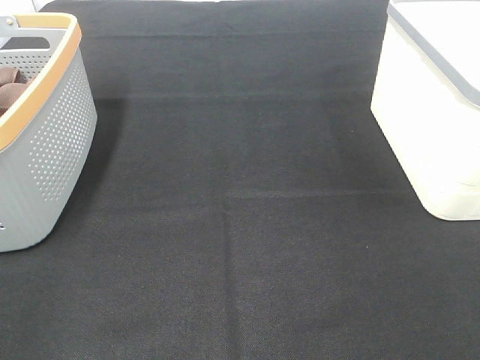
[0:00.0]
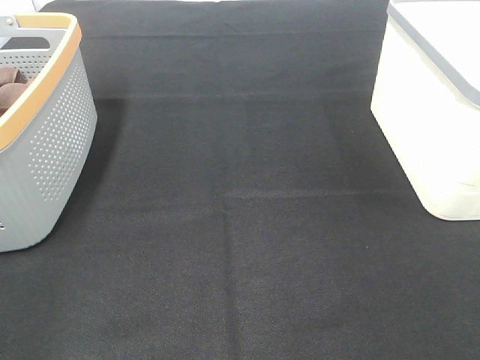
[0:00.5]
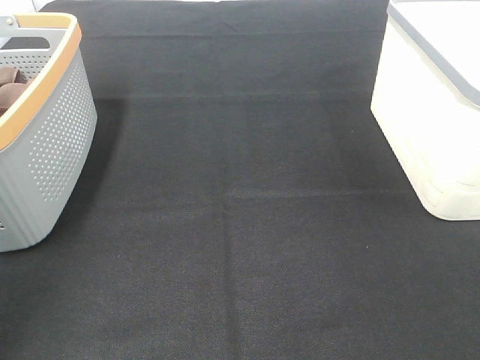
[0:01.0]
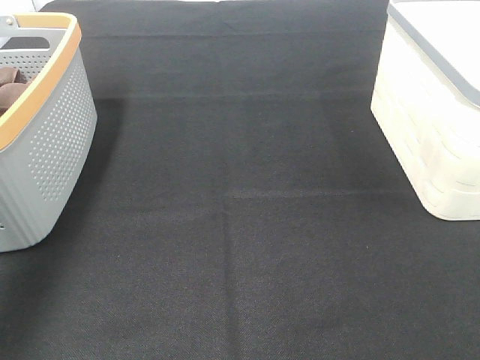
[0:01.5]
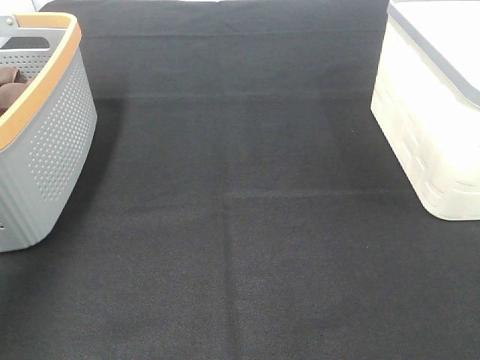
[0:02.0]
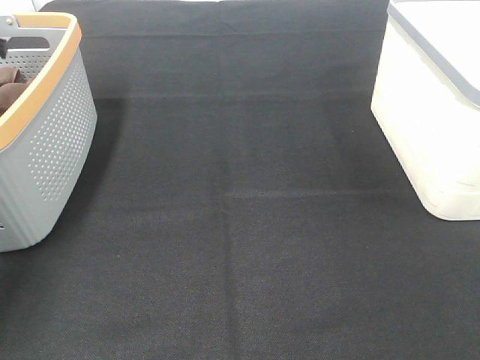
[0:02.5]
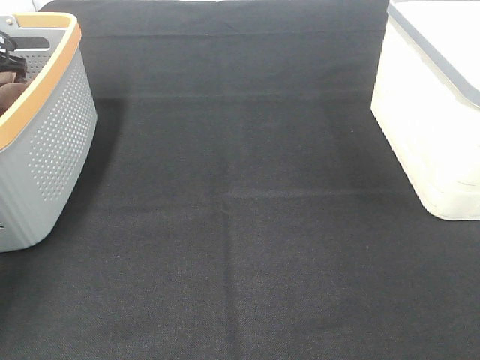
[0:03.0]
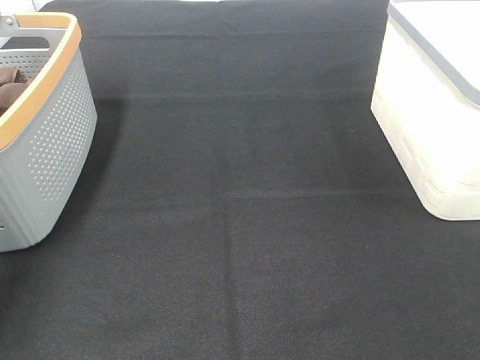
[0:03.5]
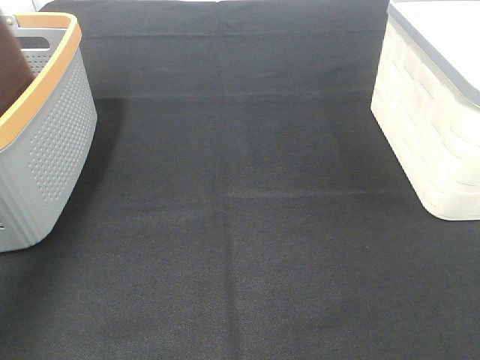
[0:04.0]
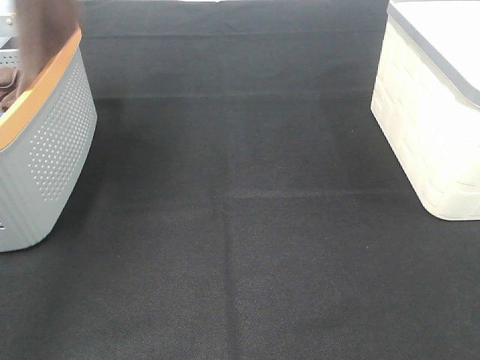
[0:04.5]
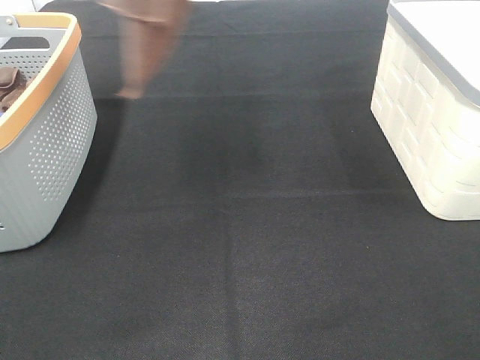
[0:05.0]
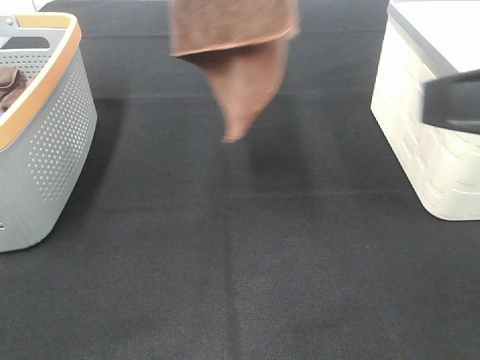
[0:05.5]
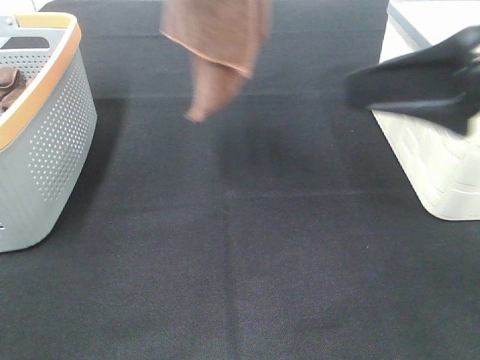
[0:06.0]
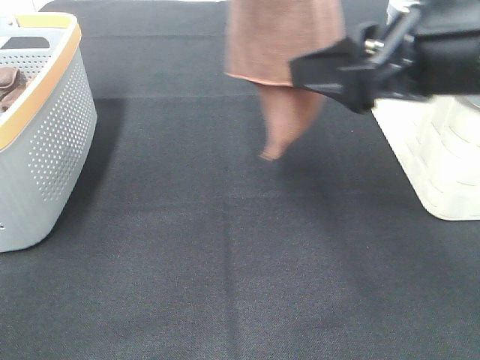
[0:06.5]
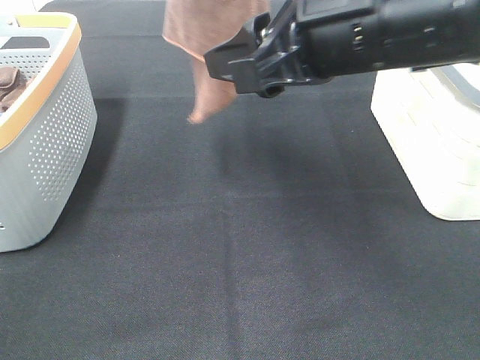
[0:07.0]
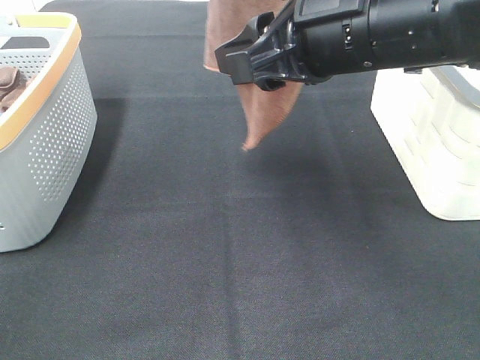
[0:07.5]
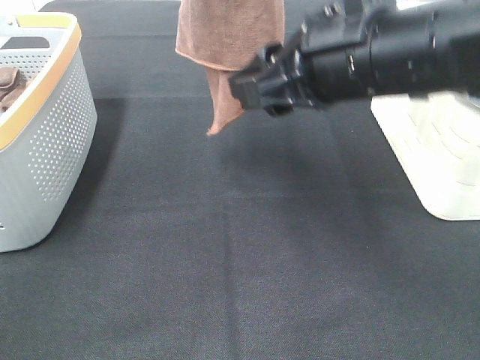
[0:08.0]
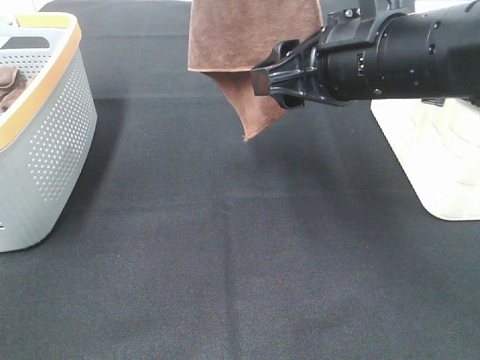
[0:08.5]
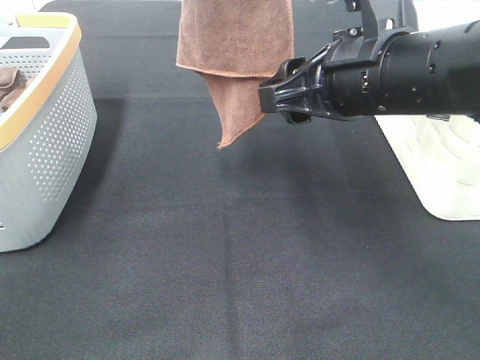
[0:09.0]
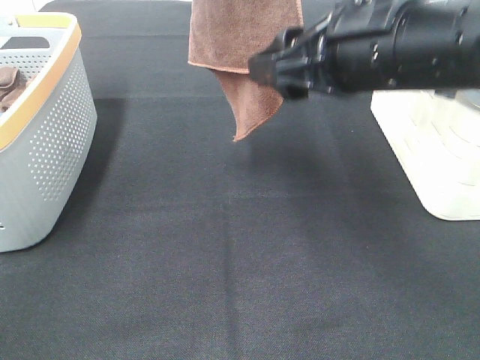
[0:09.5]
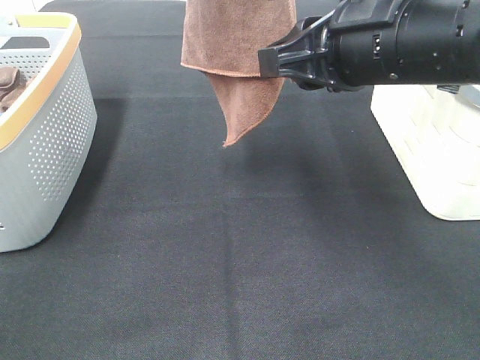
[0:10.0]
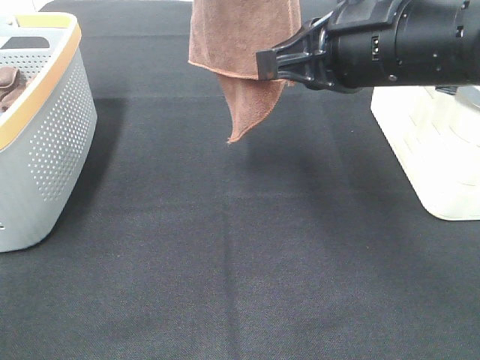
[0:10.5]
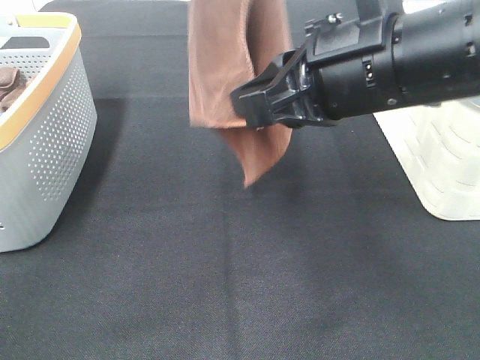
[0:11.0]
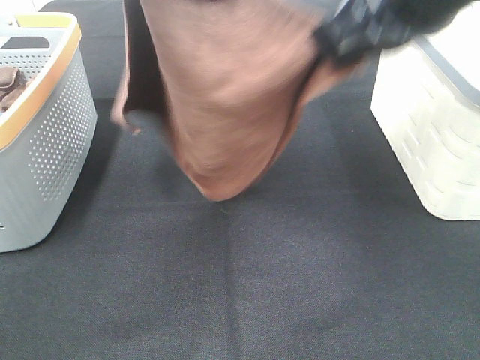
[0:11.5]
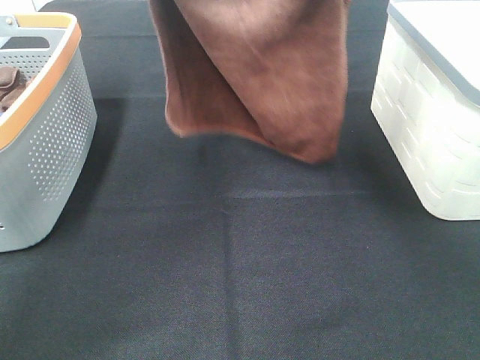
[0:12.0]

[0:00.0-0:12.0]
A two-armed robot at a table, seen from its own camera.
Task of the whole recording: Remove the towel and place it.
Step, 0:03.5 to 0:08.0: Right hand: grab a corner of the brown towel and straighten it.
Step, 0:08.5 to 0:10.5: Right hand: spread the brown towel flat on the table.
0:00.0 to 0:02.0: The left gripper goes some 40 cm forward.
0:02.0 to 0:04.0: The left gripper shifts some 15 cm upward, and closes its fingers.
0:04.0 to 0:06.0: The right gripper goes roughly 20 cm forward and to the left. Meanwhile the left gripper moves to the right, about 25 cm.
0:06.0 to 0:08.0: The right gripper is displaced to the left and forward by some 10 cm.
0:08.0 to 0:10.0: There are only small adjustments of the grippers.
0:10.0 to 0:12.0: The left gripper moves downward, forward and to the left, some 20 cm, while the right gripper travels forward and upward by approximately 10 cm, and closes its fingers.

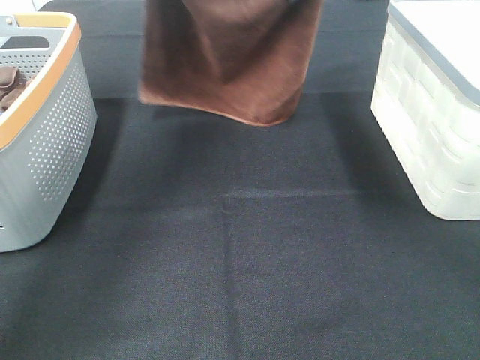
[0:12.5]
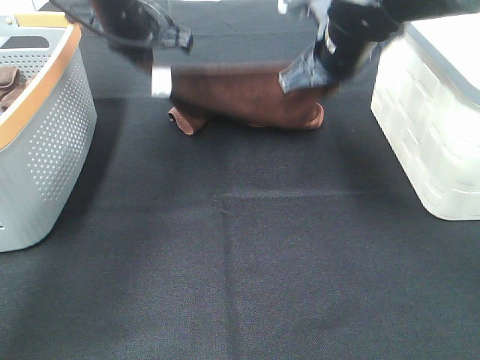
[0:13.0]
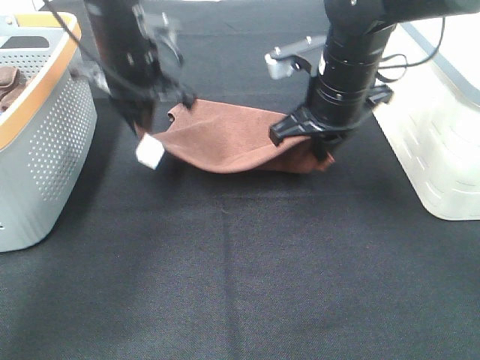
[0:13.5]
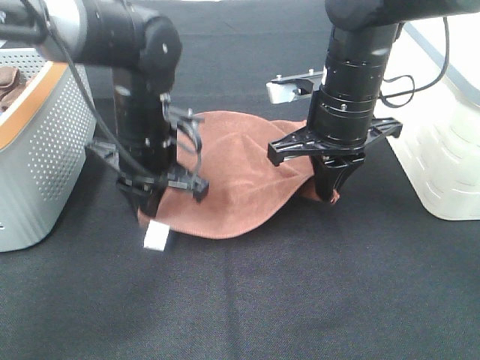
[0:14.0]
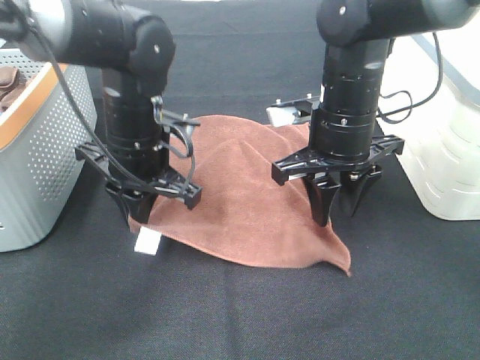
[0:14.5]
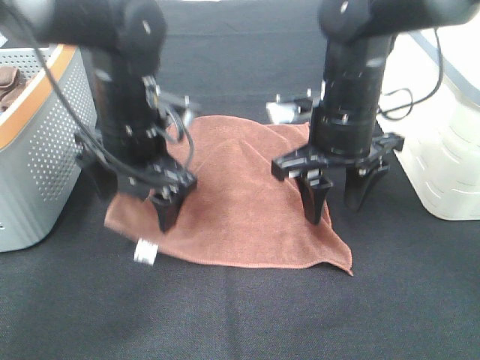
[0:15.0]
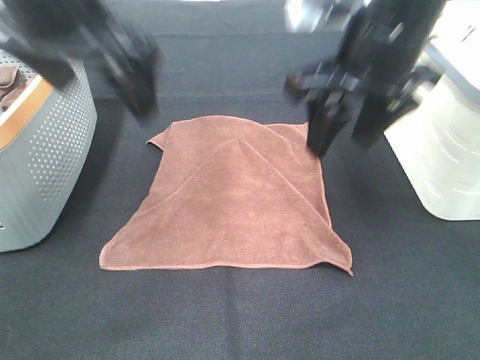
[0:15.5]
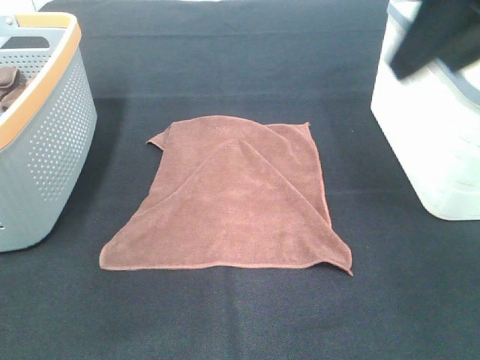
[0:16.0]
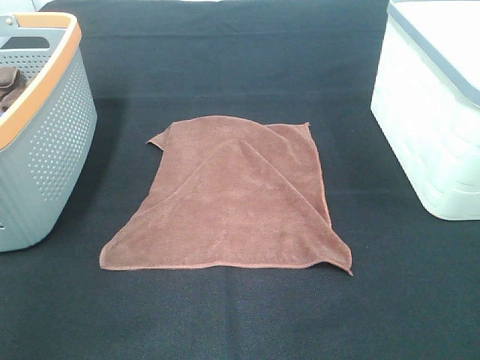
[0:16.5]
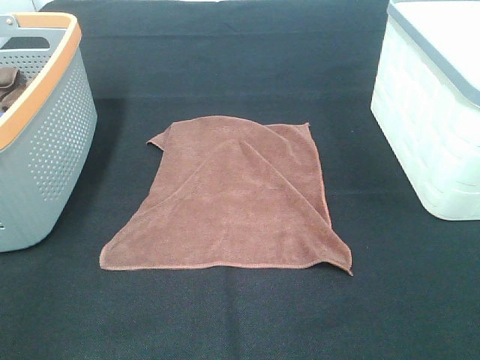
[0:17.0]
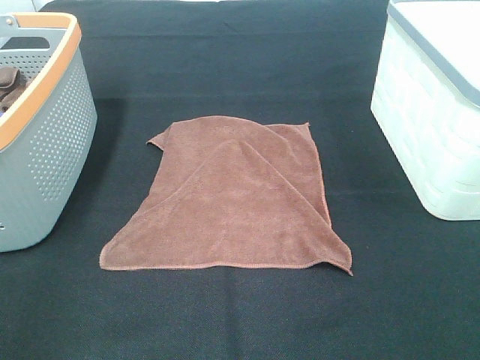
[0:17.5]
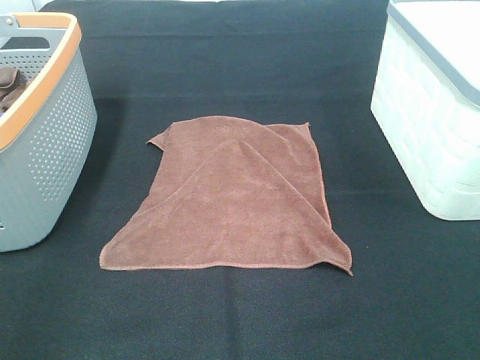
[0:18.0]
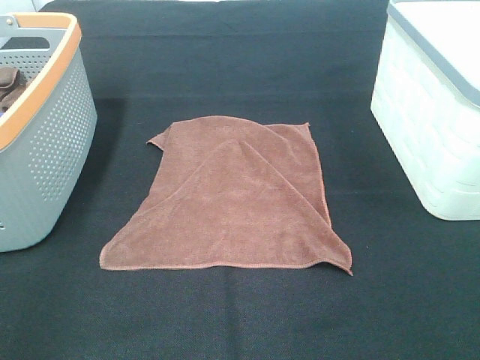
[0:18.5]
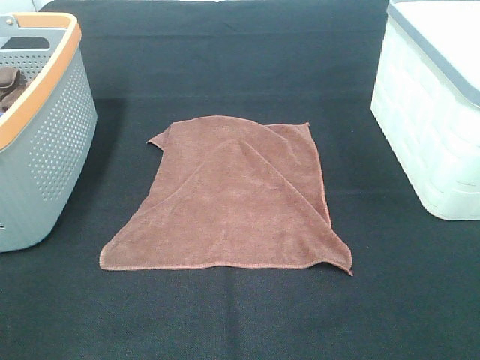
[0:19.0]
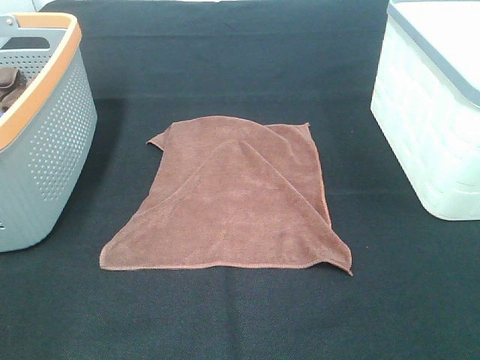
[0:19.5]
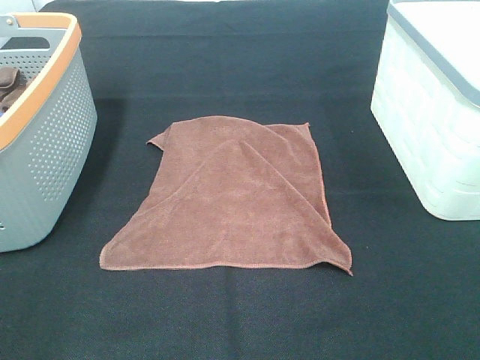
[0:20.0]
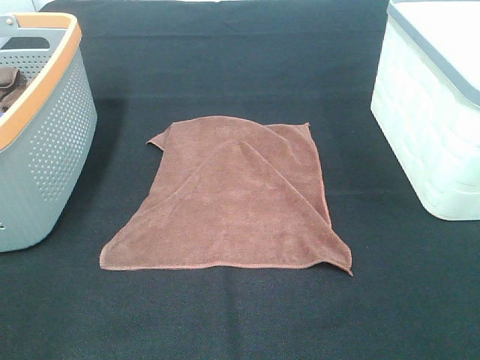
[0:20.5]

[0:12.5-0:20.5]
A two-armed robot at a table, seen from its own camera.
Task of the whole recording: Remove the towel and place it.
0:12.5 to 0:14.5: The left gripper heads downward and backward, covering approximately 20 cm, while the right gripper shifts about 15 cm downward and backward, and opens up.
0:14.5 to 0:16.5: The right gripper is displaced backward, upward and to the right by some 35 cm. Meanwhile the left gripper is displaced upward, backward and to the left by roughly 40 cm, and opens up.

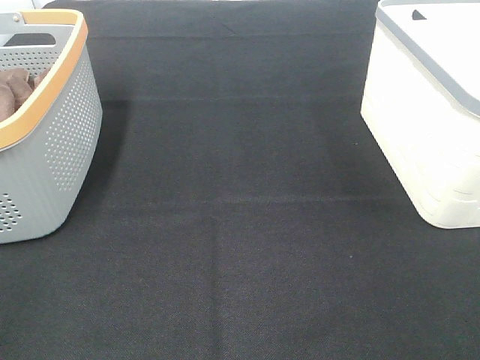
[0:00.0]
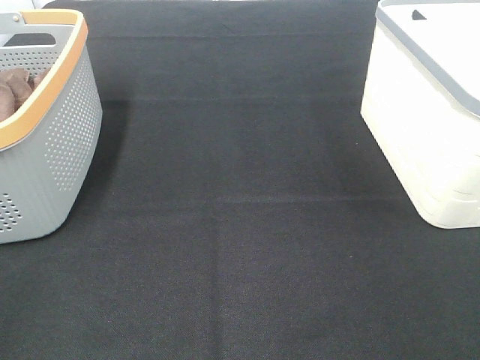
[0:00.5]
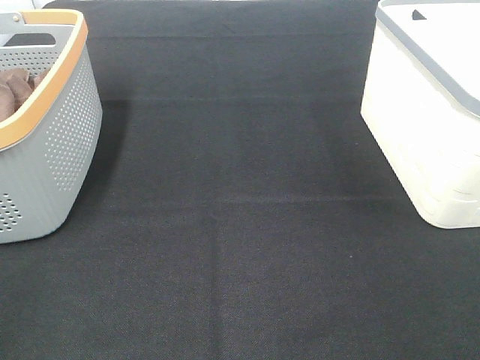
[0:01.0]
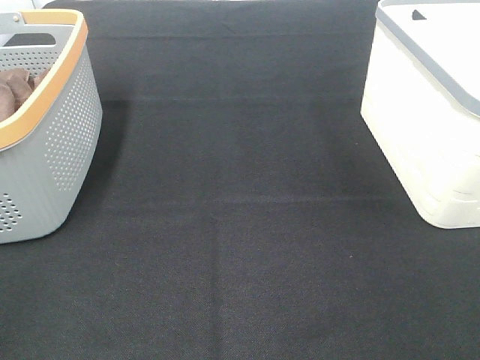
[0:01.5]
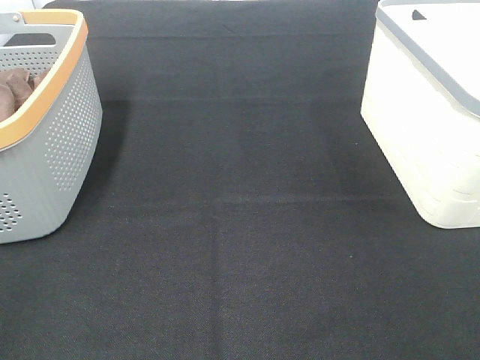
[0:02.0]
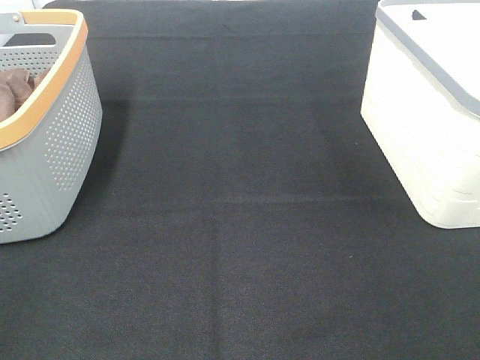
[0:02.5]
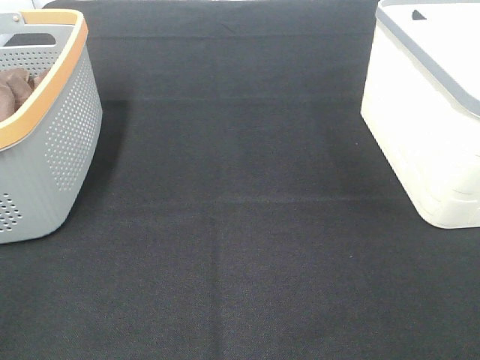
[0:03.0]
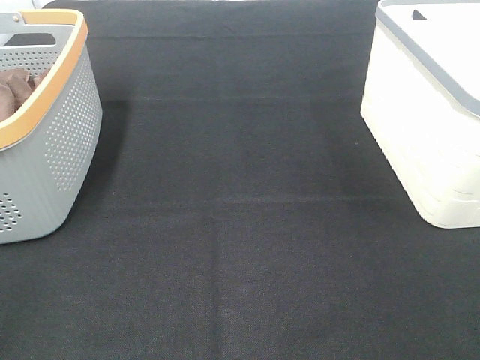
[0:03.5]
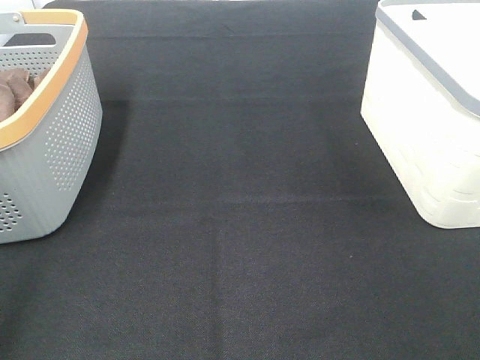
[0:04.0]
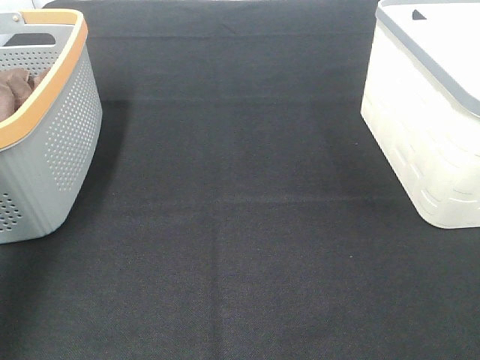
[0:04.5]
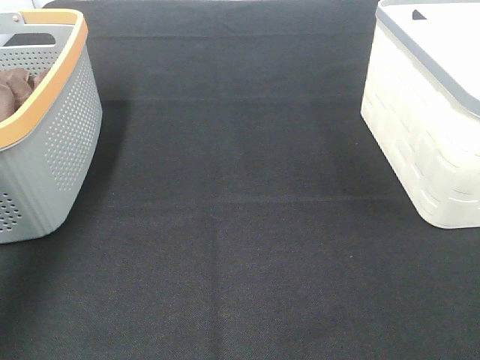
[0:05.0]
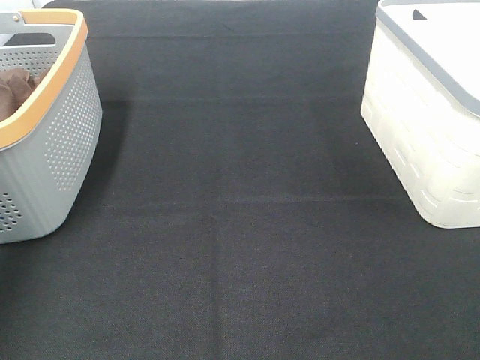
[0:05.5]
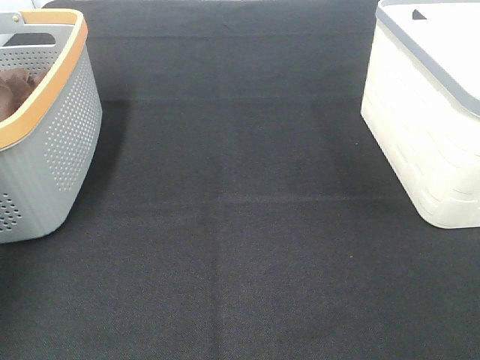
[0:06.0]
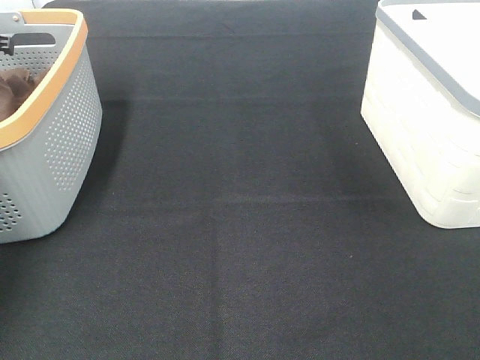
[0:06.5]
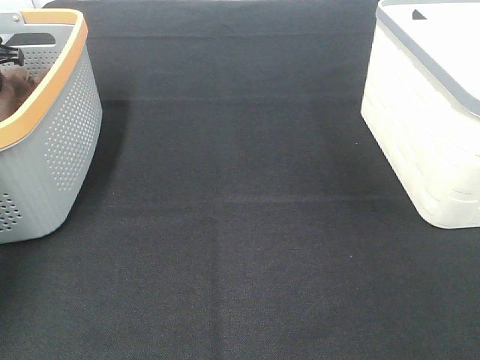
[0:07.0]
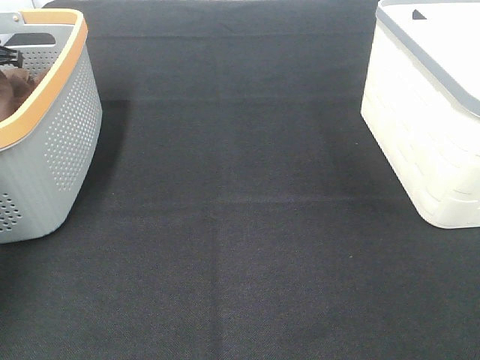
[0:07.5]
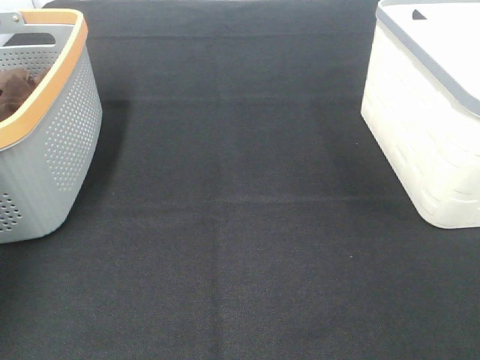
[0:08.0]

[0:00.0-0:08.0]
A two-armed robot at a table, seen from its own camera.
Task of the whole recording: Remove the towel and place it.
0:00.0 to 0:02.0: Both grippers stay about where they are.
0:04.0 to 0:06.0: The left gripper moves forward, some 40 cm.
